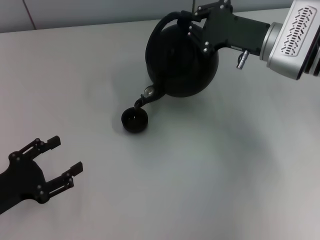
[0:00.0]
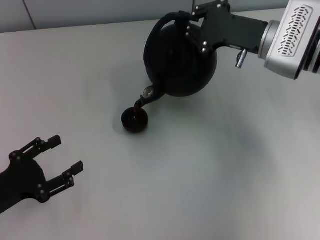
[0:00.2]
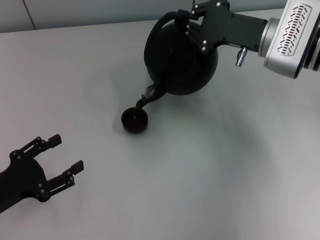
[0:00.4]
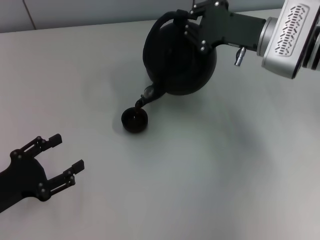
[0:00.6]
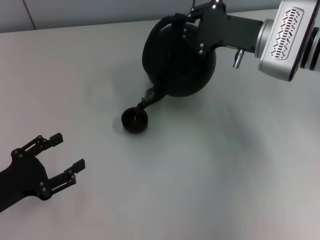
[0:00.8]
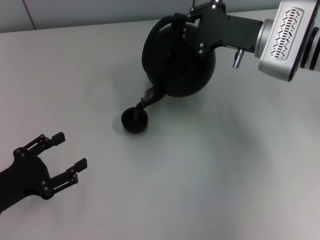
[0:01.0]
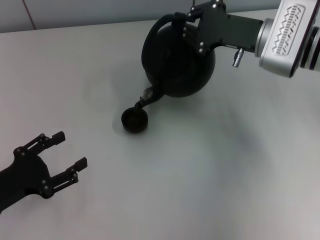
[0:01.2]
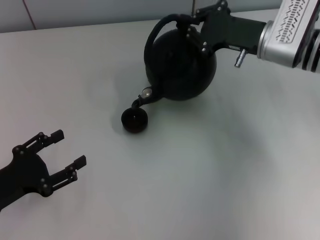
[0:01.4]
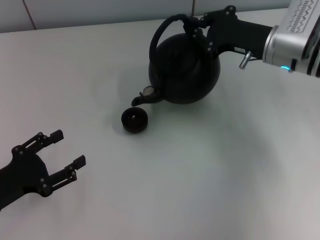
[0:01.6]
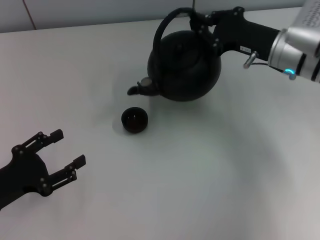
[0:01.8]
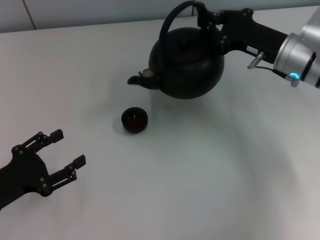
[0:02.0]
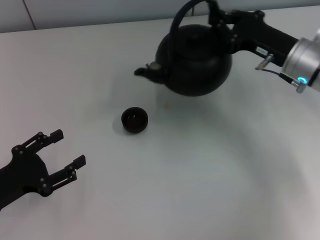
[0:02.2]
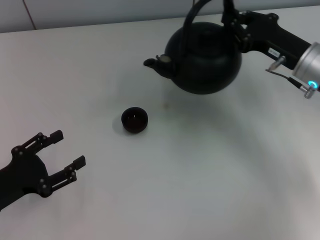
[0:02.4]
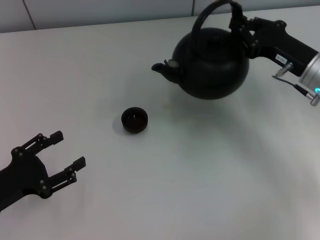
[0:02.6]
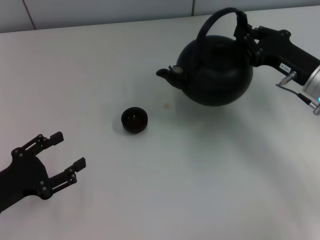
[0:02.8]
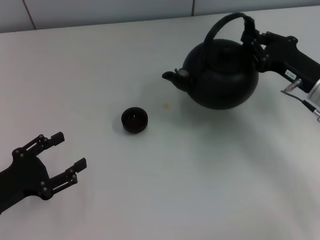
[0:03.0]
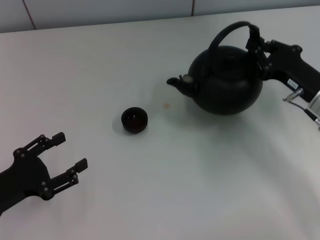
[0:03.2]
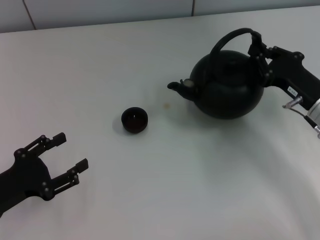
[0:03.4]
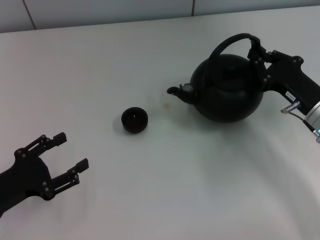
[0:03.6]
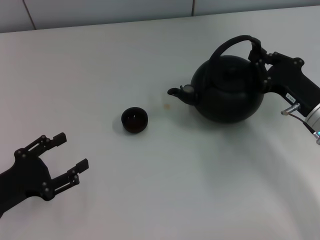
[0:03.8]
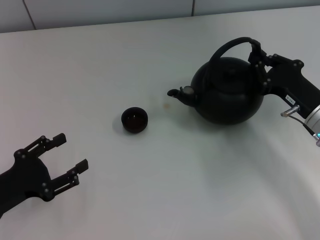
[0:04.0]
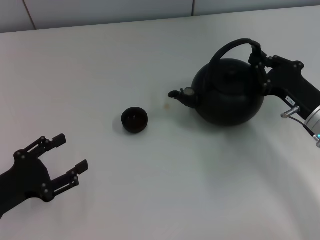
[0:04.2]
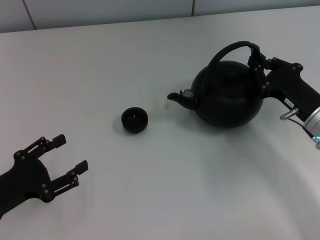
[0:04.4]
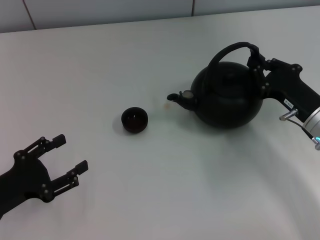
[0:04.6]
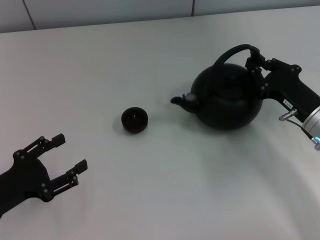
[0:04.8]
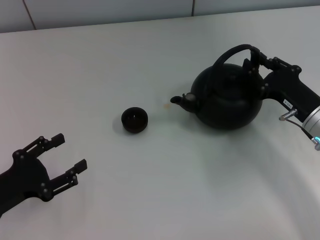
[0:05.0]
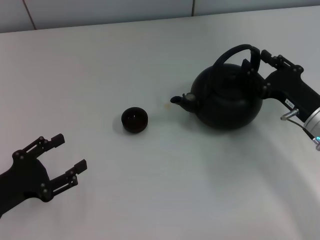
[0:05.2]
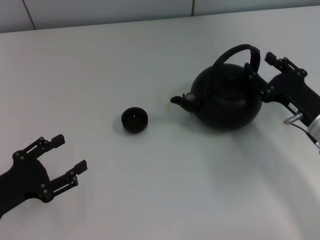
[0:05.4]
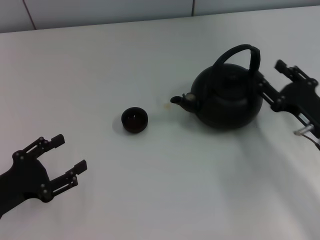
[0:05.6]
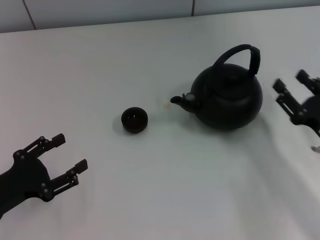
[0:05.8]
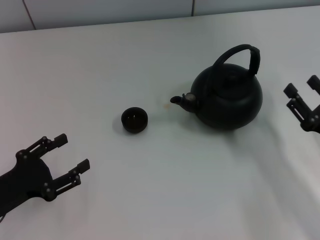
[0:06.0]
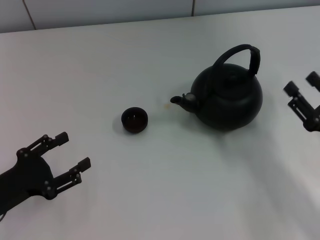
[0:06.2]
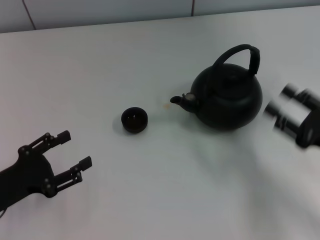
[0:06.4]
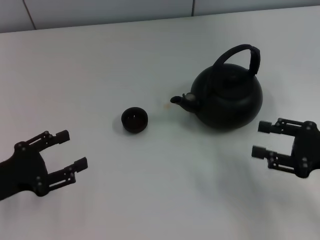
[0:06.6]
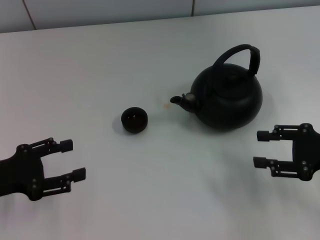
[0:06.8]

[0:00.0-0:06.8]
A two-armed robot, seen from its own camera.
Task of the whole recording: Grasp the handle of the teapot with one hand and pour tea into the teacup.
Step, 0:01.8 to 0:05.4: Put down the teapot with the right gripper.
0:00.0 to 0:01.4: The grippers stay close to where they were, moving slightly.
0:01.4 to 0:02.8: The right gripper moves backward and to the right, approximately 10 cm.
0:02.8 to 0:04.0: The right gripper ends up approximately 5 cm from where it was.
0:04.0 to 0:05.4: The right gripper opens up.
0:05.4 to 0:06.8: The left gripper shifts by approximately 5 cm. Meanwhile the right gripper heads to the right and upward, covering some 10 cm, and opens up.

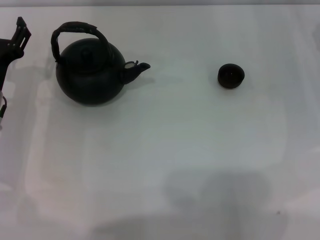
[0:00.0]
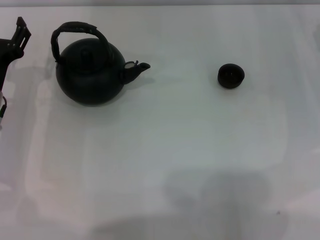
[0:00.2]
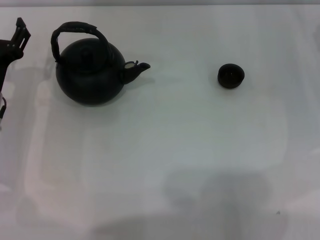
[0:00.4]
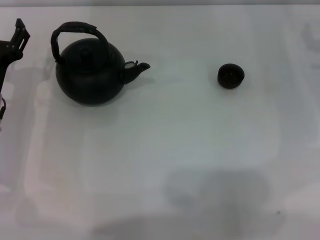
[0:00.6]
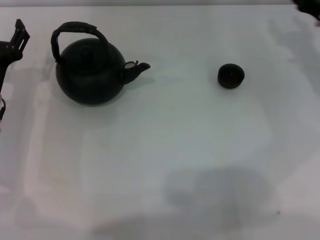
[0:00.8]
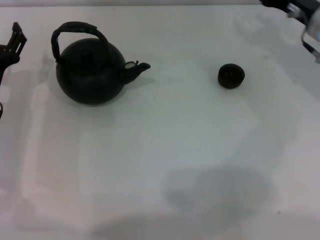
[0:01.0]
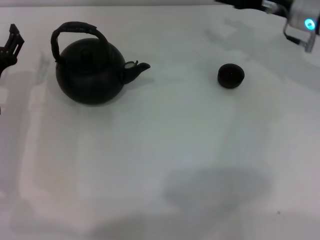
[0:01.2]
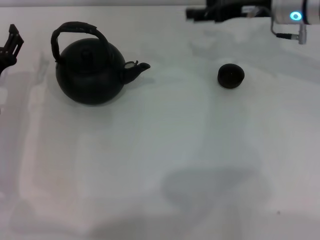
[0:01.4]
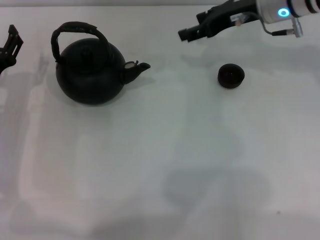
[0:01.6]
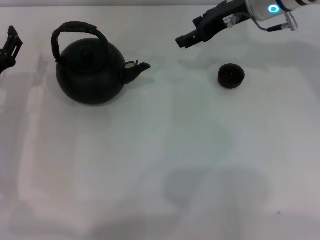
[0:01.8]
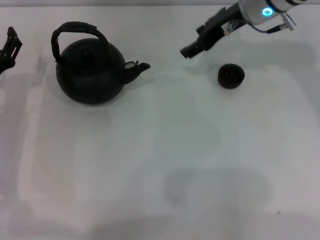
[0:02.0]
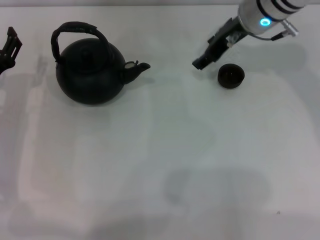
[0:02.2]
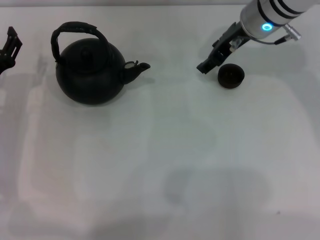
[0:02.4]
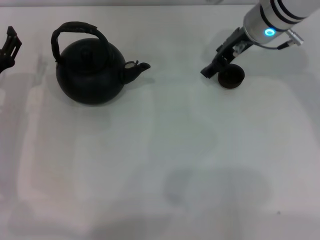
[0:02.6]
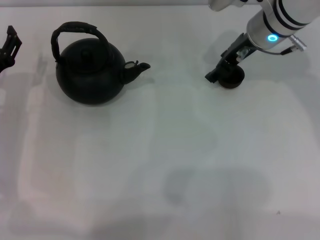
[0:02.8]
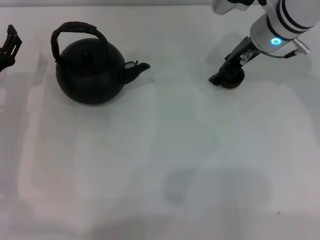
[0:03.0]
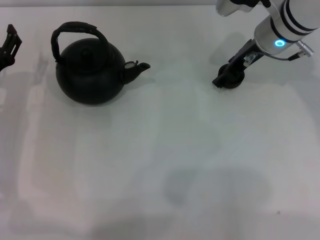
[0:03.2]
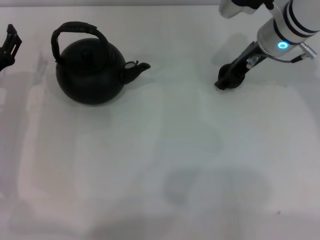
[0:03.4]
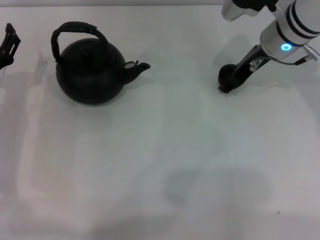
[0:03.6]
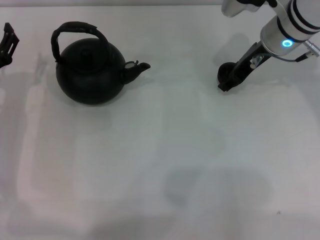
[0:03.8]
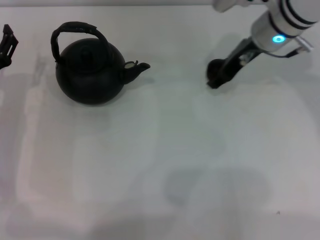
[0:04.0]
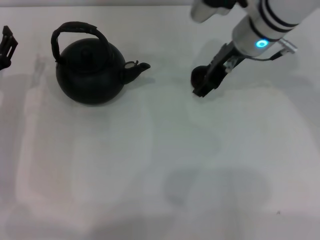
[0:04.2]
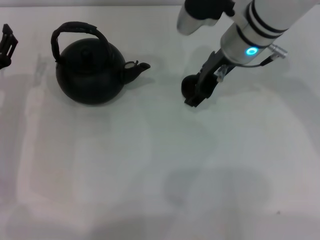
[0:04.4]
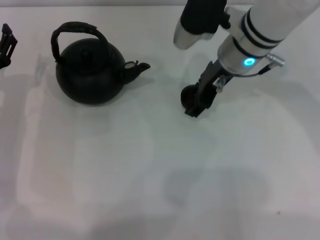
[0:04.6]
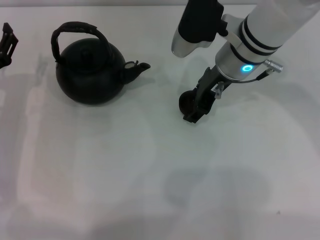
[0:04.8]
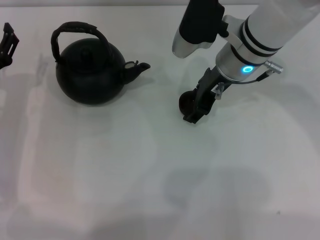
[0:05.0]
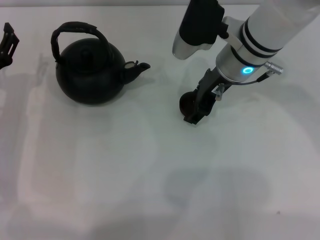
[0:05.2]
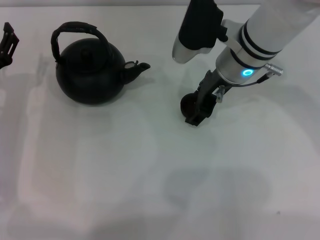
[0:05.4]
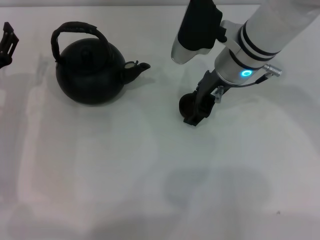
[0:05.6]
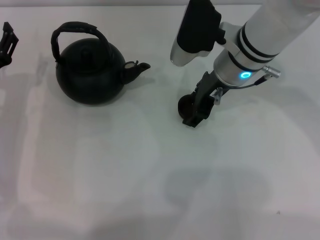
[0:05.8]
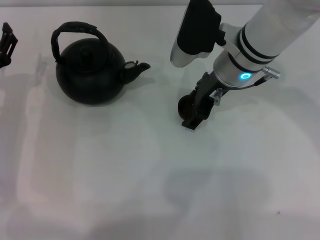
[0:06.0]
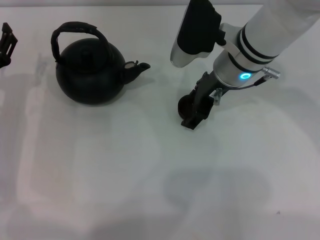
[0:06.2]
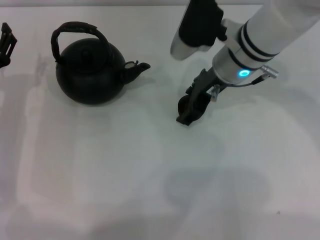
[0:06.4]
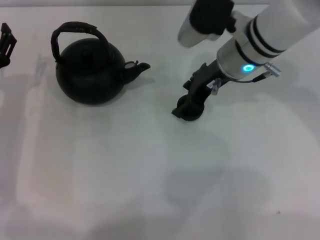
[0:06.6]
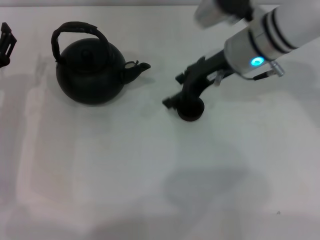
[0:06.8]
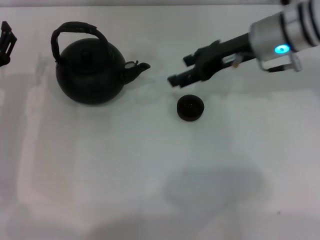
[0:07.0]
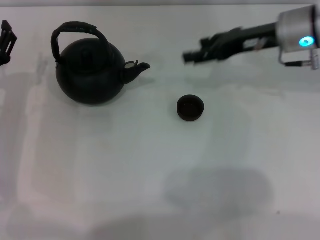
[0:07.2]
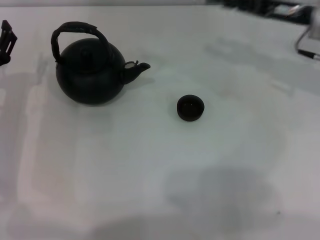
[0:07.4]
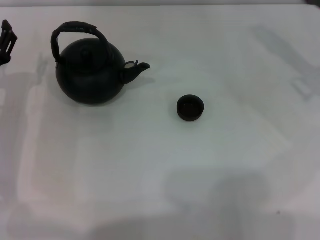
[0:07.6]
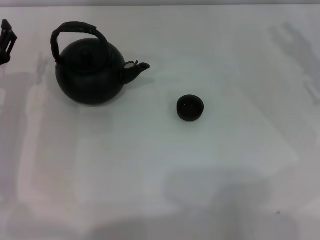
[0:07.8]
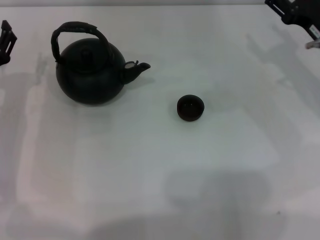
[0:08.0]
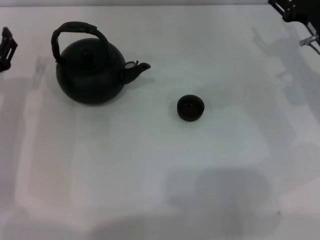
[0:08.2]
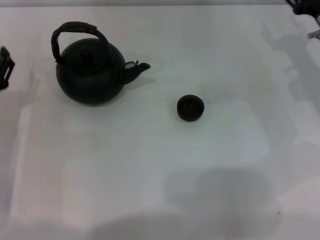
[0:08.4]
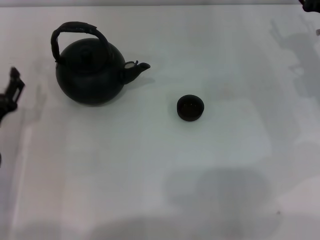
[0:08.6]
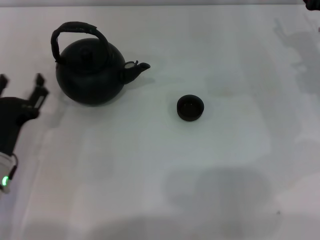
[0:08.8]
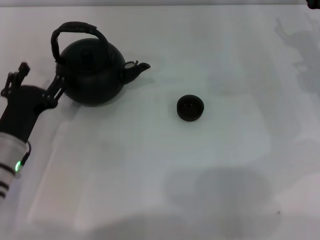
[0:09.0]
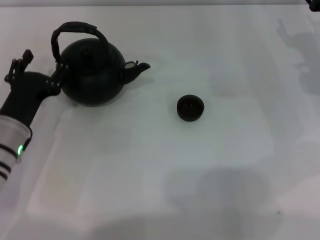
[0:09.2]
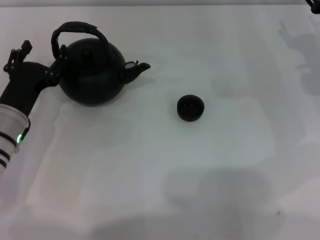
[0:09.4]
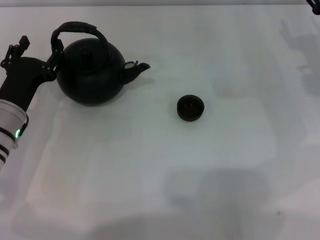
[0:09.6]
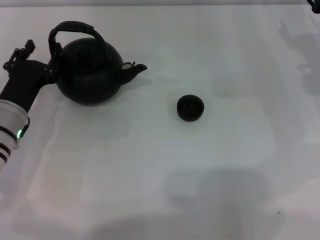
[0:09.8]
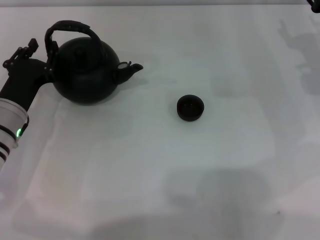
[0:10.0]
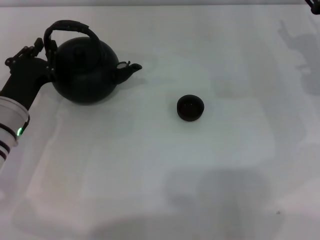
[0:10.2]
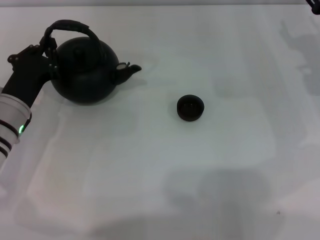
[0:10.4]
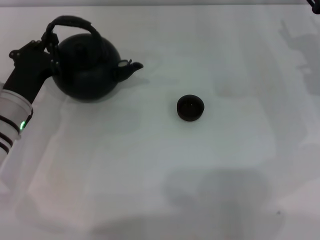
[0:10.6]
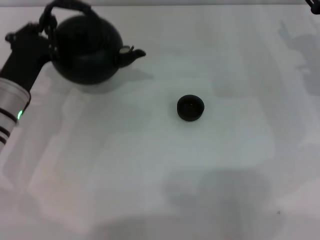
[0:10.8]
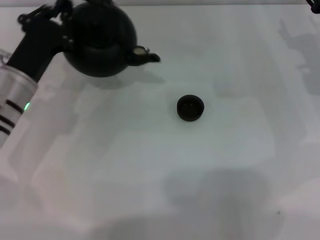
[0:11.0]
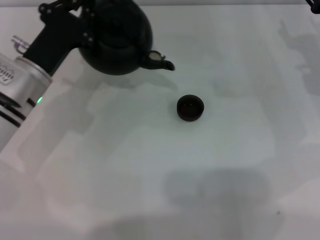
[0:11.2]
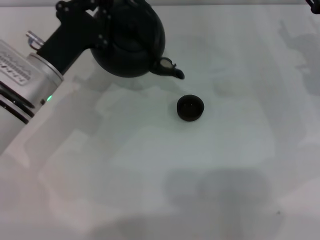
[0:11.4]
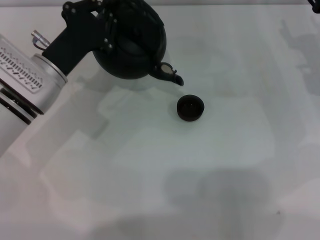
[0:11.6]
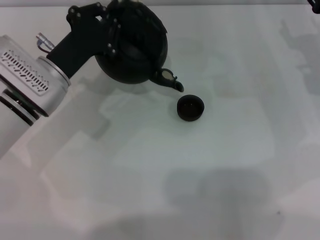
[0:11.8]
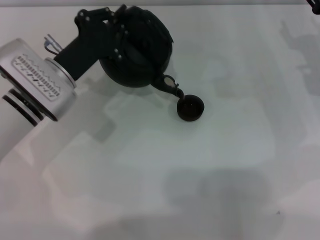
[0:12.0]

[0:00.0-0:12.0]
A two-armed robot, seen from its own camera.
Task of the whole recording: Grasp the handle of the teapot with one hand and pour tea into the teacup.
Step, 0:00.0 to 0:03.6: Pick up the teacup with the right gripper.
Step, 0:04.0 to 0:07.0: Place the teacup in the center of view with the right gripper.
Step, 0:07.2 to 0:10.6: Pick up the teapot with the left gripper.
0:00.0 to 0:01.6: The right gripper shifts approximately 20 cm to the left, upward and forward.
0:03.0 to 0:04.4: The right gripper heads to the left, covering some 5 cm.
0:04.4 to 0:06.0: The right gripper opens.
0:06.0 to 0:07.6: The right gripper heads to the right, covering some 20 cm.
0:07.6 to 0:09.0: The left gripper travels backward by approximately 5 cm.
0:09.0 to 0:10.4: The left gripper moves forward, about 5 cm, and closes.
0:10.4 to 0:12.0: The left gripper travels to the right by about 5 cm.

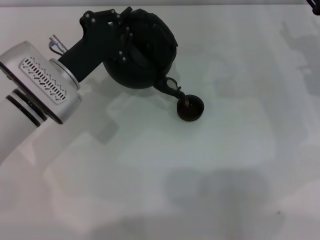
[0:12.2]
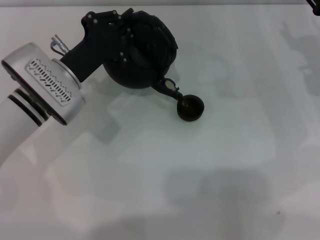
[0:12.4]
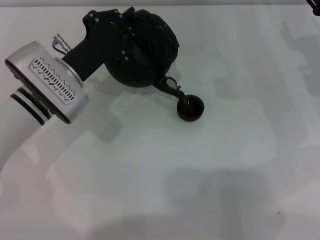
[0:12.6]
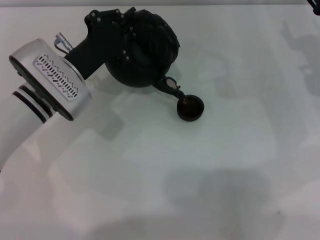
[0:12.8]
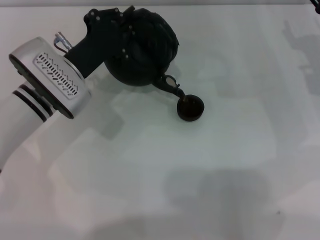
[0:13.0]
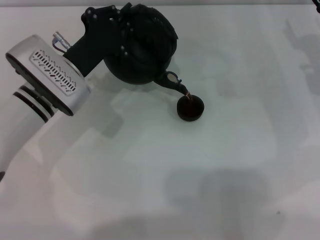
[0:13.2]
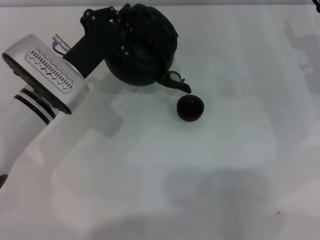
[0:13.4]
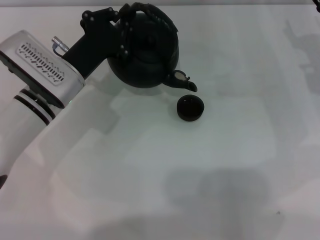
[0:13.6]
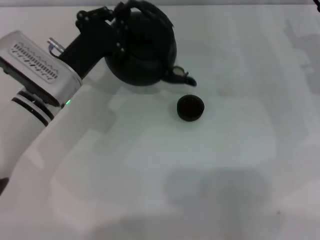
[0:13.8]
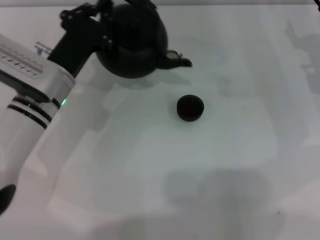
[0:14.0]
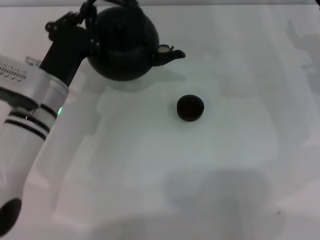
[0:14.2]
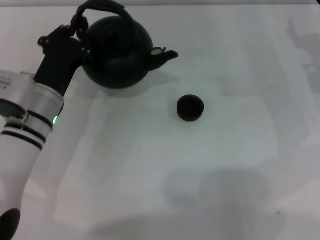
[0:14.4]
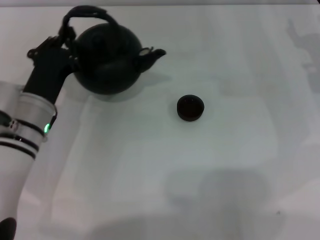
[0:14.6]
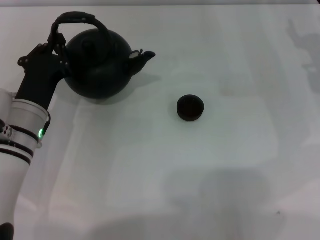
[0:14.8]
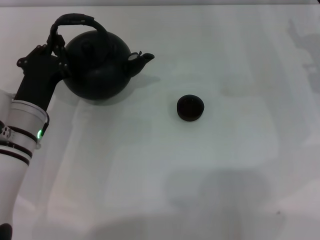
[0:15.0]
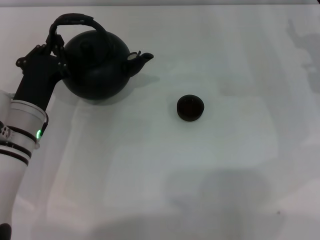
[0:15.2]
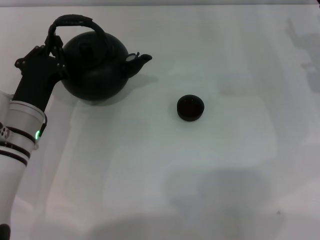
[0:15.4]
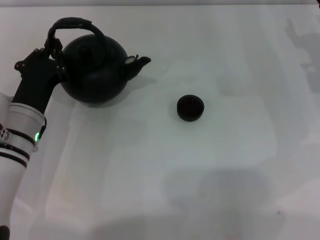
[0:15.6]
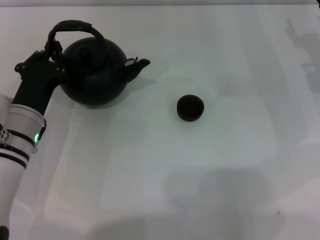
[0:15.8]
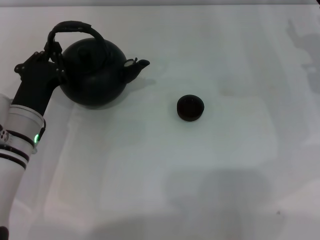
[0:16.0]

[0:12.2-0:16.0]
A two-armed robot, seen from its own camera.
Task of the whole recording: Grasp the handle of the teapot with one hand and pour tea into the teacup.
Step, 0:12.2 to 0:13.6: Pour tea into the teacup with the left gripper.
0:12.2 to 0:13.4: There are only small adjustments of the grippers.
0:13.4 to 0:14.8: The left gripper shifts approximately 5 cm backward.
0:14.8 to 0:16.0: Both grippers stay put.
